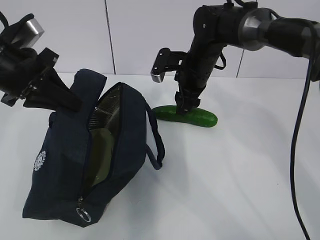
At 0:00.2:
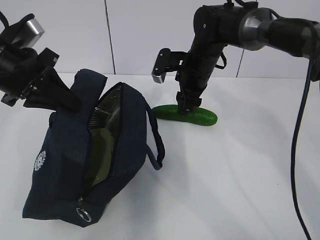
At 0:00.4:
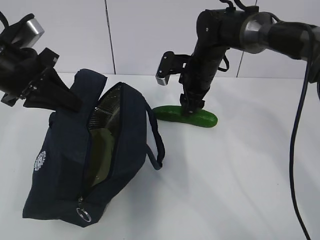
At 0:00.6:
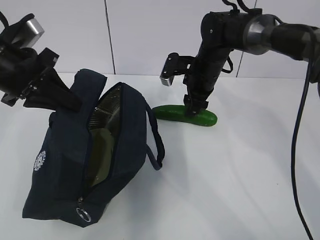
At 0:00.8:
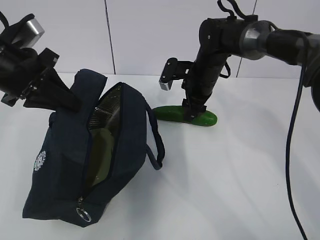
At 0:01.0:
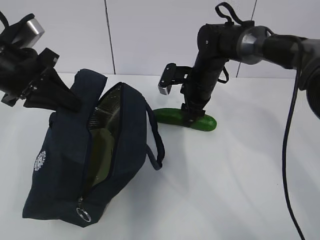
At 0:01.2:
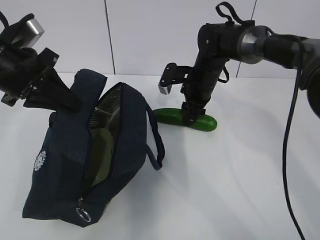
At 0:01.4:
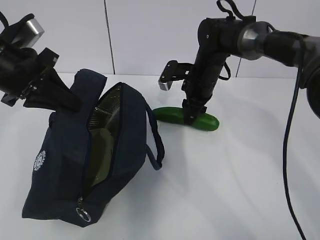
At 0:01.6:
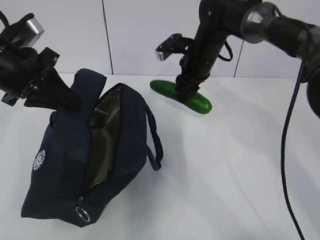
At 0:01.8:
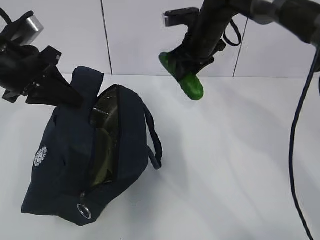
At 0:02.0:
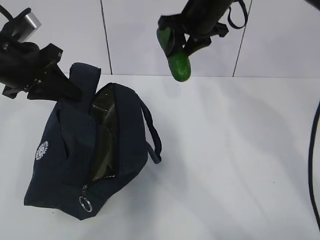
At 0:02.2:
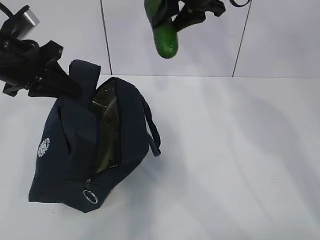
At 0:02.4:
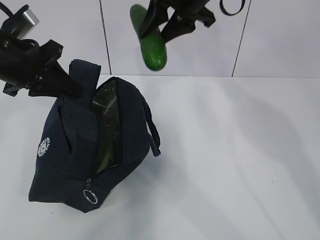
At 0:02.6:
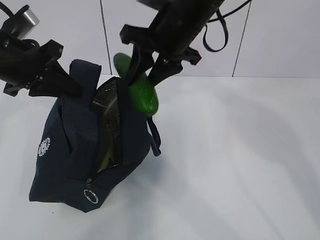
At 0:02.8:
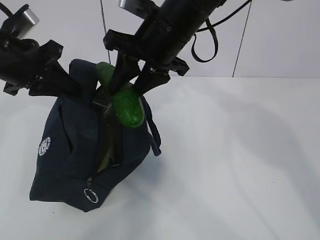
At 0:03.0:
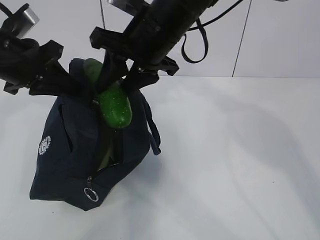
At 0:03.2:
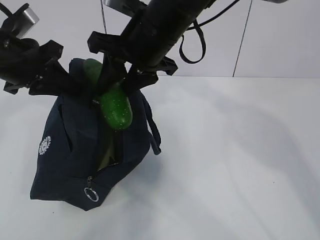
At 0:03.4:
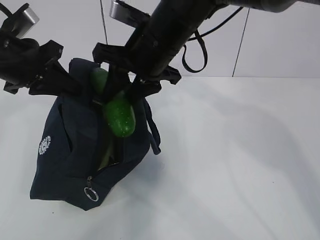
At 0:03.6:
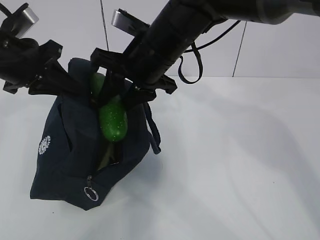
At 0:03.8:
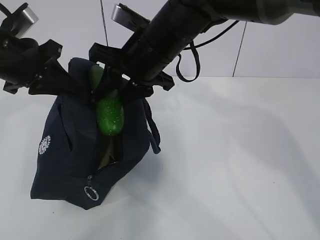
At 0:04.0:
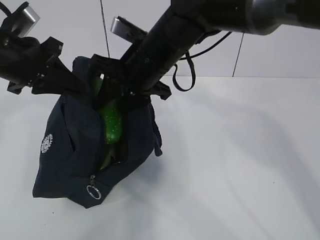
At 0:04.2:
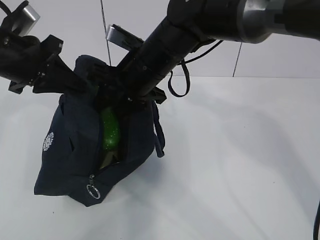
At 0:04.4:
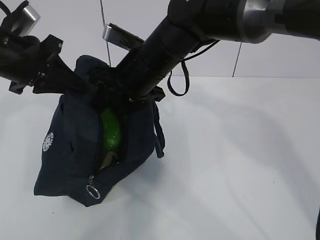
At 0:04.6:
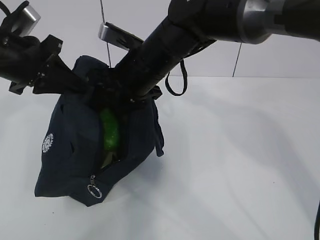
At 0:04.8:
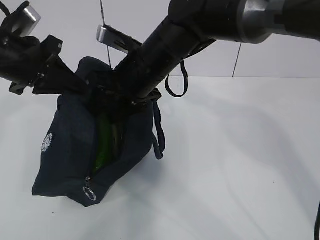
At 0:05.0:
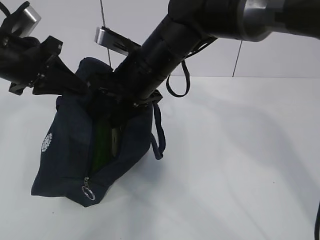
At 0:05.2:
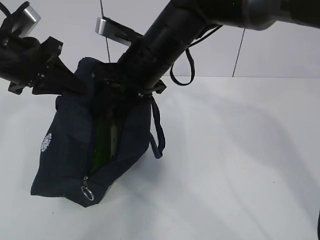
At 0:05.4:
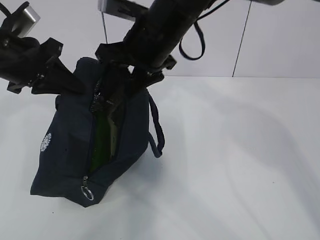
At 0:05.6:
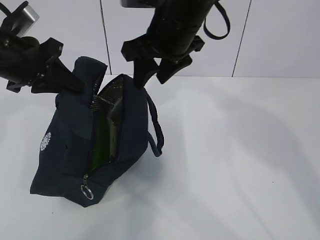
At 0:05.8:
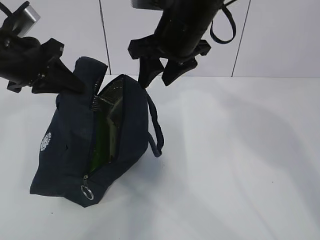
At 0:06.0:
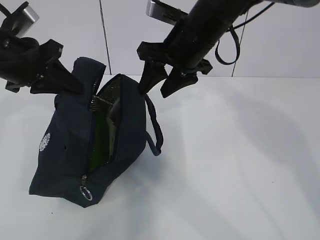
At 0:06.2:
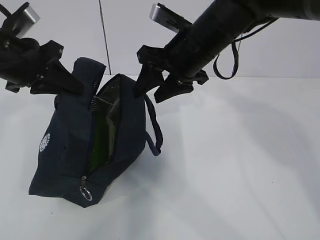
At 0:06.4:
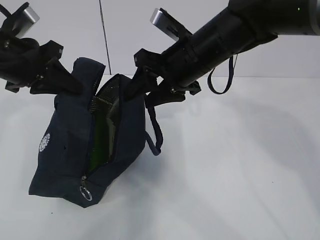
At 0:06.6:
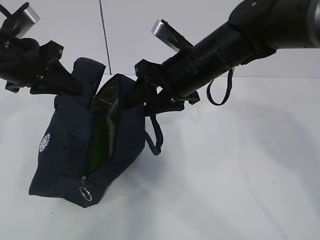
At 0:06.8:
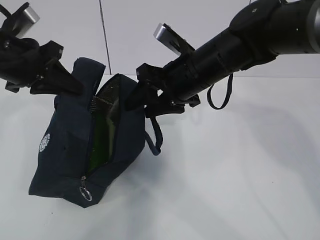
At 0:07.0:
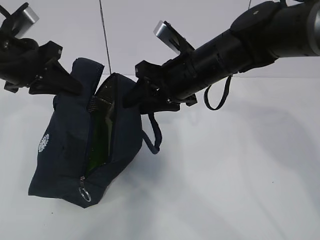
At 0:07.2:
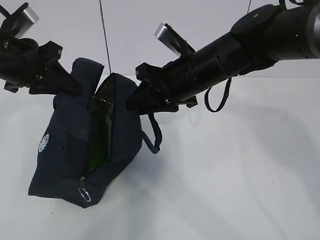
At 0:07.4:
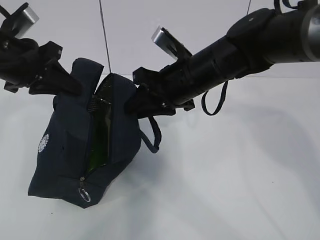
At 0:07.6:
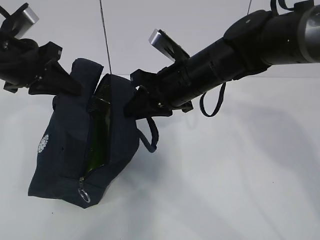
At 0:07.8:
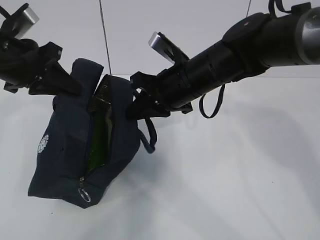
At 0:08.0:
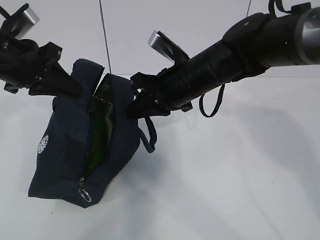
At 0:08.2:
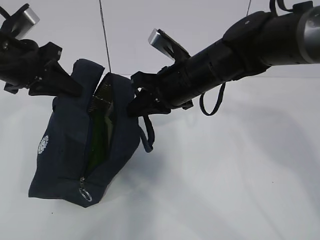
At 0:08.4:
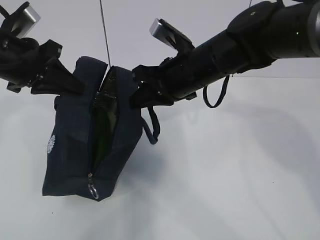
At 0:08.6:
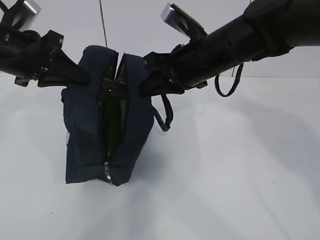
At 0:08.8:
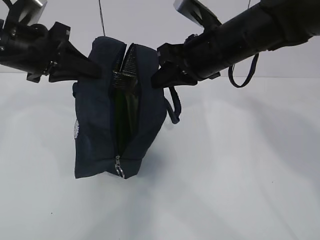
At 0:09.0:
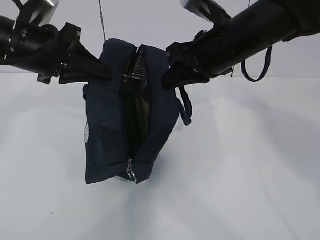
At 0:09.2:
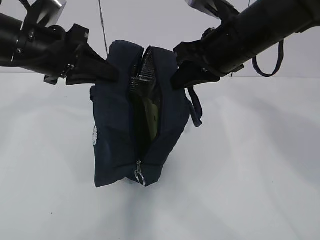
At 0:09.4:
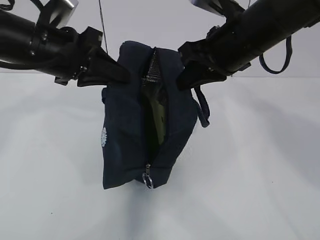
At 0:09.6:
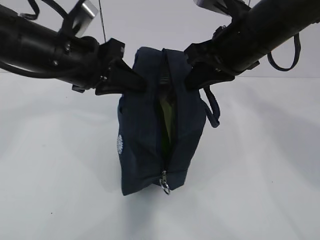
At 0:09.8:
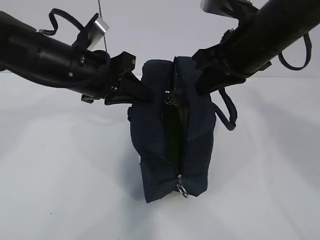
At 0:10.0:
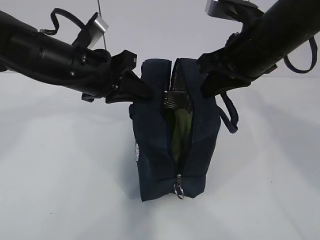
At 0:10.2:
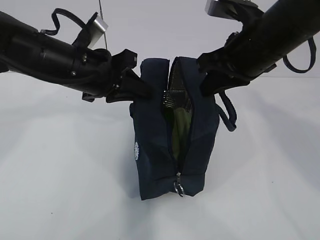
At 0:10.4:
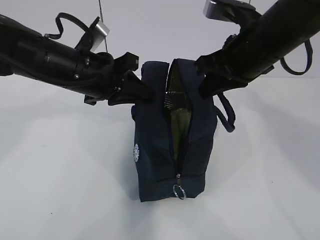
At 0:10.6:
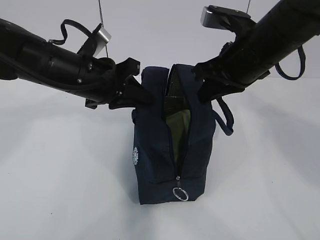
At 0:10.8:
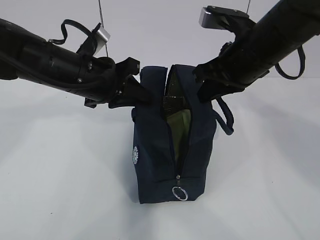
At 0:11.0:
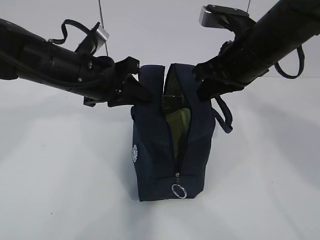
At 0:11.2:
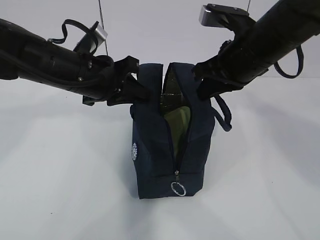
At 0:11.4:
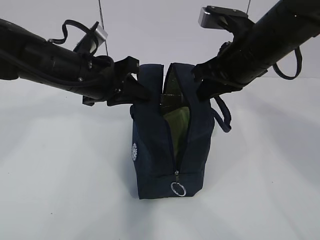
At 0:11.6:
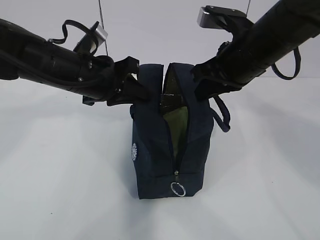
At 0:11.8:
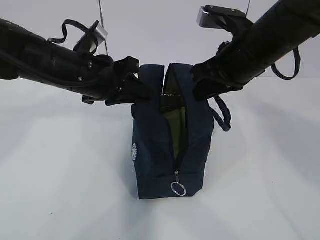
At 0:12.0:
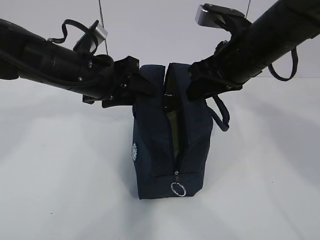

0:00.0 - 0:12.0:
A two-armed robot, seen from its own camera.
Step, 0:01.0 - 0:04.2: Move the lunch bag to the right.
0:00.0 - 0:01.6: The grippers stay close to where they were, moving slightly.
0:01.6 - 0:03.0: The right gripper moves backward, upward and to the left, approximately 20 cm.
0:03.0 - 0:04.4: The right gripper travels downward by some 5 cm.
0:04.4 - 0:06.0: The right gripper is displaced to the right by roughly 5 cm.
0:06.0 - 0:07.6: The right gripper goes about 5 cm downward, and closes up.
0:07.6 - 0:09.0: The right gripper goes roughly 10 cm upward and to the right.
0:09.0 - 0:10.4: The left gripper shifts approximately 5 cm to the right.
0:10.4 - 0:12.0: The left gripper opens up, while the right gripper opens.

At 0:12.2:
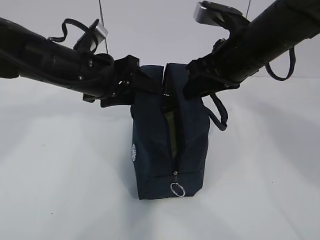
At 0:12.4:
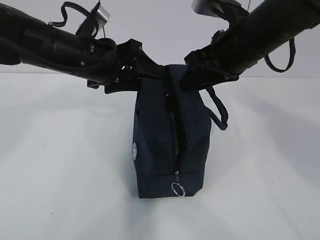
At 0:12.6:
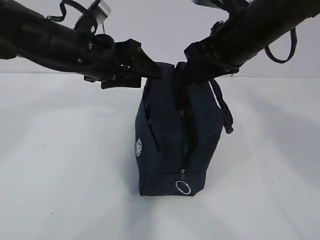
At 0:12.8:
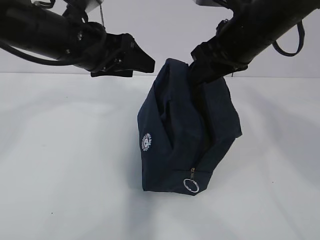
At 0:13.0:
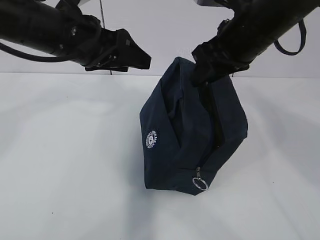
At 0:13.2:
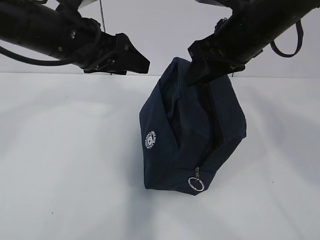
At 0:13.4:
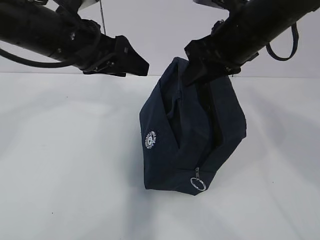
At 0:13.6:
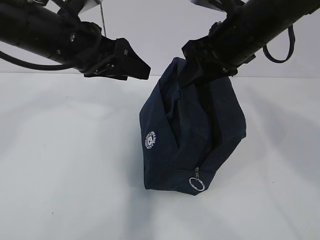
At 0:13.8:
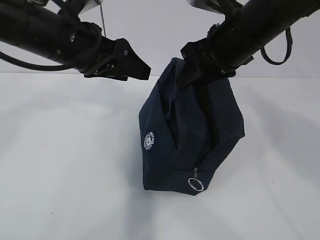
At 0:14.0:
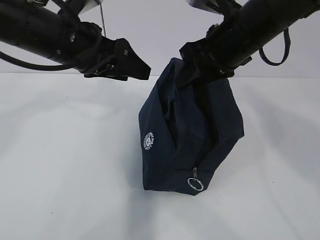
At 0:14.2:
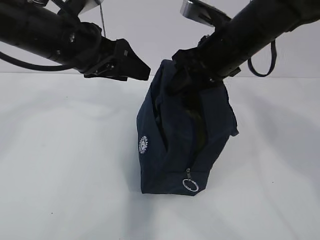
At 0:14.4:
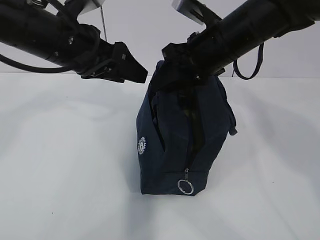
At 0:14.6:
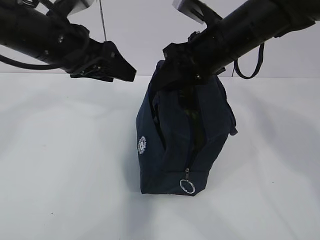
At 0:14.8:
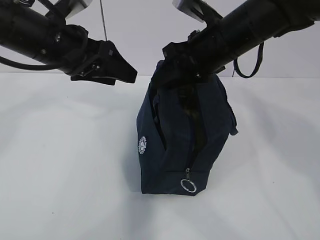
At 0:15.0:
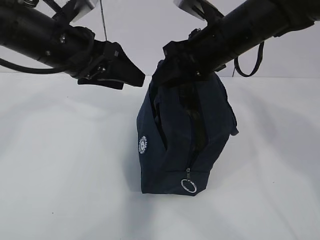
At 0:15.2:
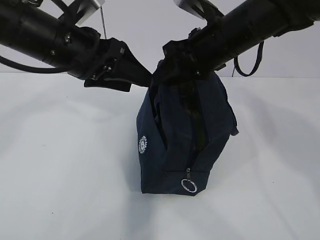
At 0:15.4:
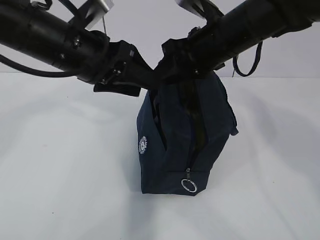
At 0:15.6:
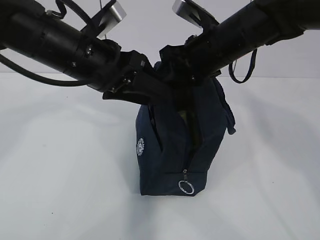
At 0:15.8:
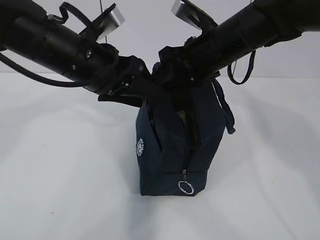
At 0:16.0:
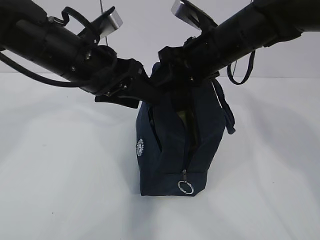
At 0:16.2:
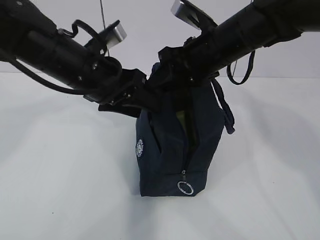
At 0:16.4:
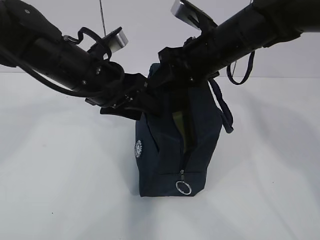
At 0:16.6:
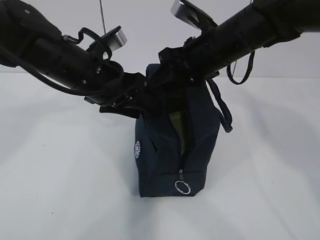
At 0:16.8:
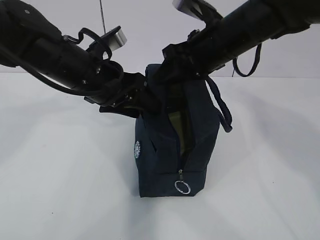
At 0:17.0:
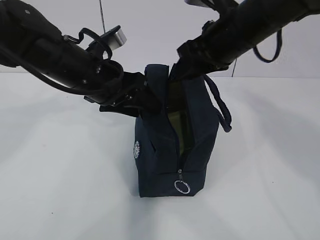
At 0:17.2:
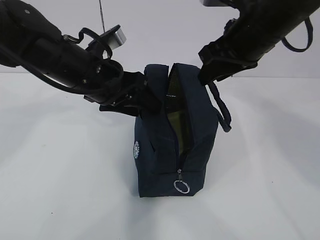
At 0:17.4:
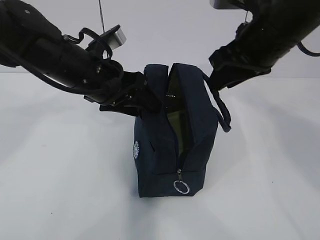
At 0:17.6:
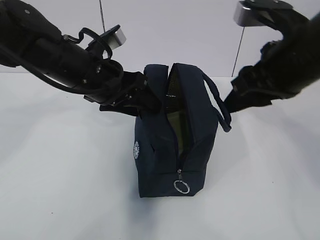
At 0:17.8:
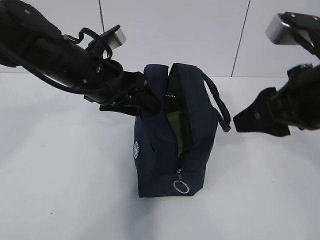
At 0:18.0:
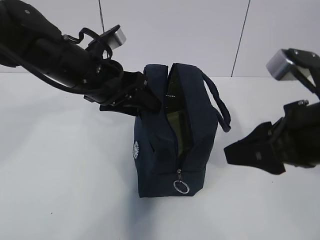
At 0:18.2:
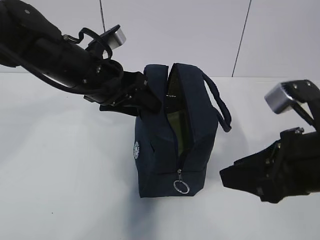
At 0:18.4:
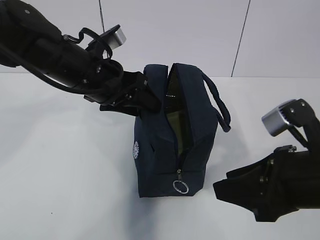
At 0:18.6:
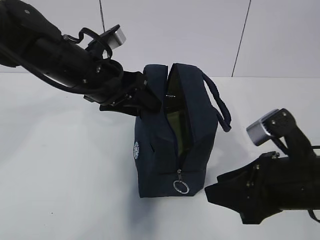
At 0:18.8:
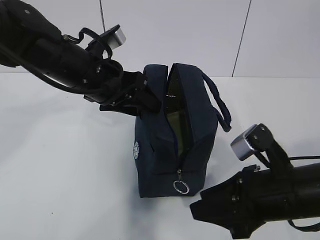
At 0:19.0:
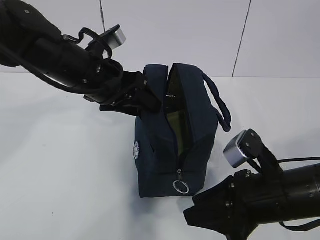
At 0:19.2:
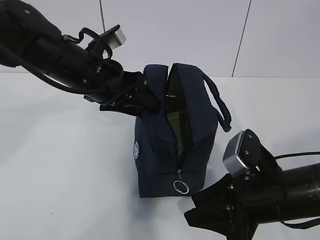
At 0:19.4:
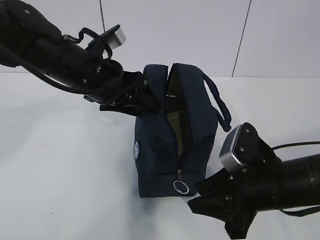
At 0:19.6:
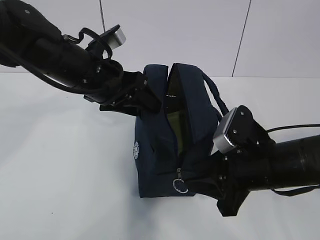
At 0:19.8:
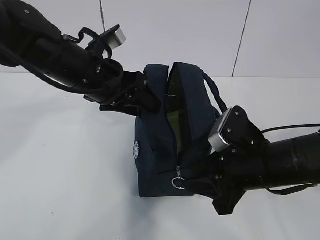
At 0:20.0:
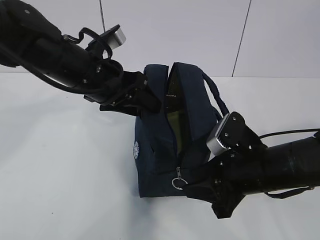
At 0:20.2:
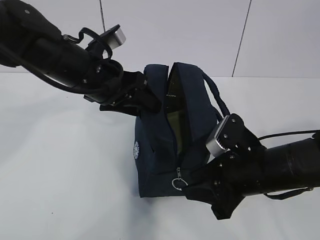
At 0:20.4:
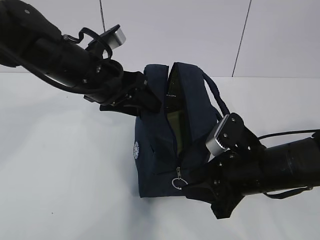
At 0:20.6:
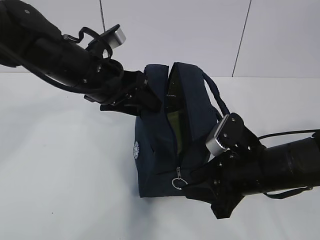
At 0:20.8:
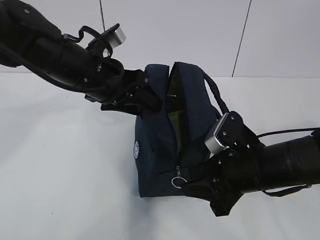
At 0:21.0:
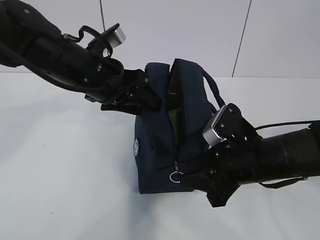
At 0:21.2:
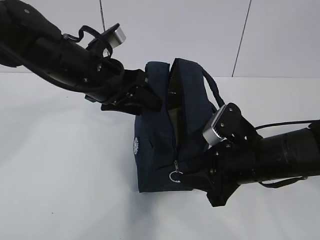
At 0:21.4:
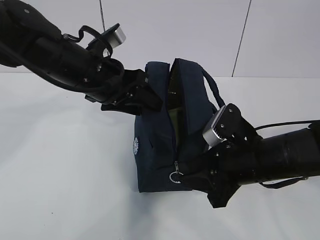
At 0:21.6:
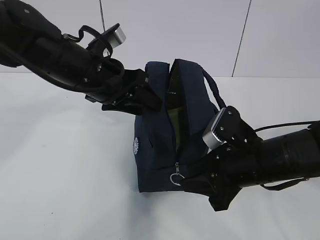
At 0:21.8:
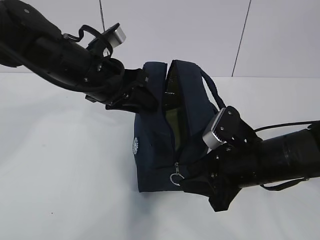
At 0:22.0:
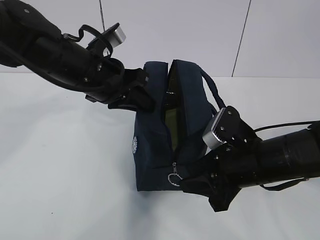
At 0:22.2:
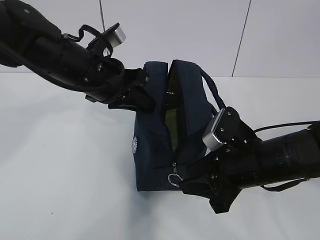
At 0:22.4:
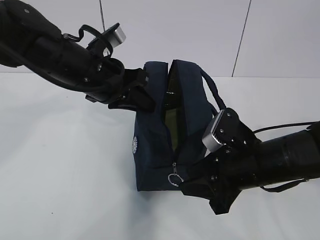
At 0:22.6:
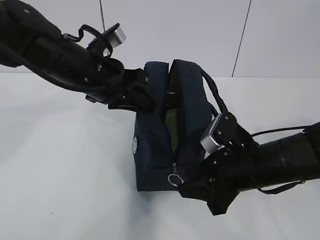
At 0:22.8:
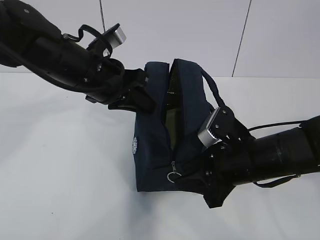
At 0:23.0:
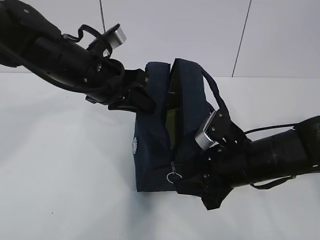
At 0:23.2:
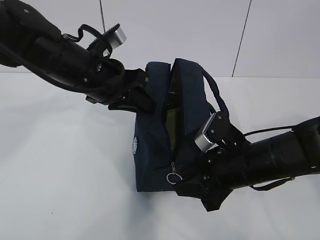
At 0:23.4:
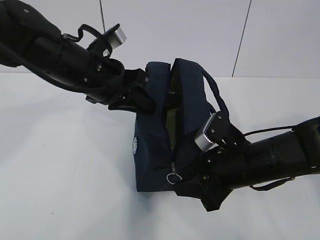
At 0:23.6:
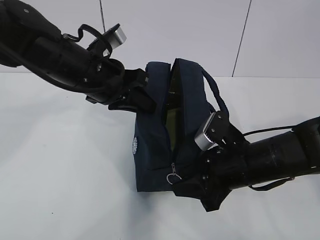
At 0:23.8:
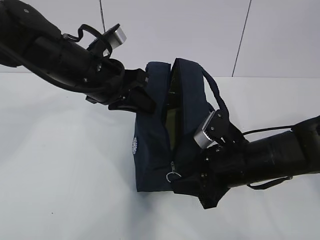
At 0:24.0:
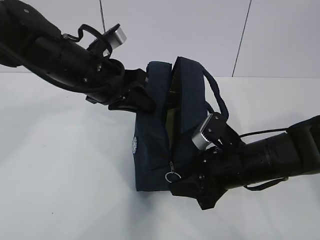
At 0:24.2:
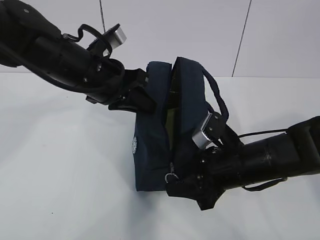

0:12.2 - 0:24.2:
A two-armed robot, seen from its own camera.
0:12.2 - 0:13.8: The left gripper goes roughly 5 cm upward.
0:13.8 - 0:15.2: There are only small adjustments of the grippers.
0:15.2 - 0:16.6: The left gripper ends up about 5 cm from where it was.
0:16.6 - 0:18.2: The right gripper is displaced backward and to the right by approximately 20 cm.
0:18.2 - 0:19.8: The right gripper moves downward and forward, some 10 cm.
0:19.8 - 0:21.2: The grippers move only a little.
0:21.2 - 0:22.6: The left gripper closes its fingers.
0:22.6 - 0:24.2: There are only small adjustments of the grippers.
